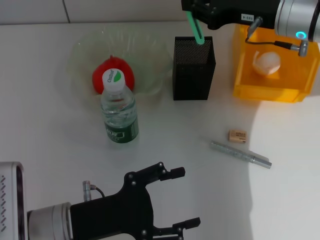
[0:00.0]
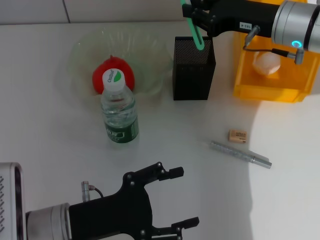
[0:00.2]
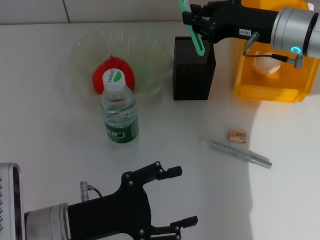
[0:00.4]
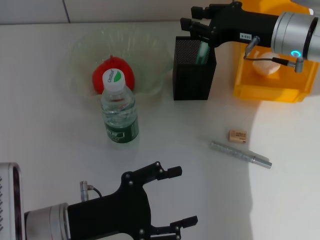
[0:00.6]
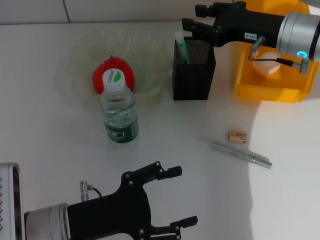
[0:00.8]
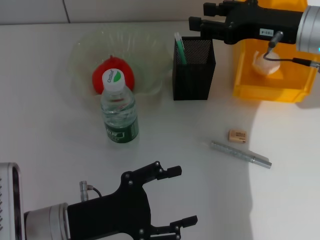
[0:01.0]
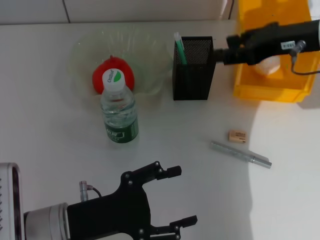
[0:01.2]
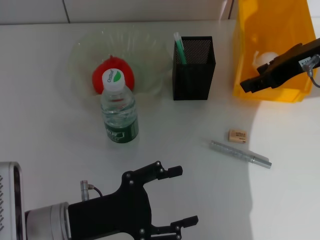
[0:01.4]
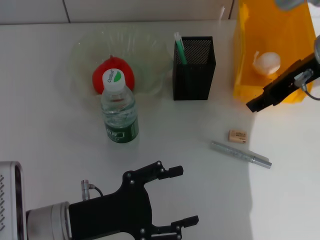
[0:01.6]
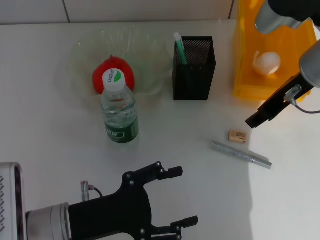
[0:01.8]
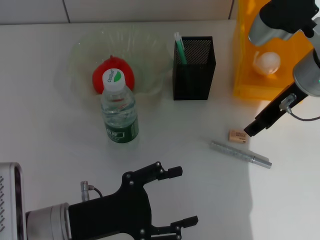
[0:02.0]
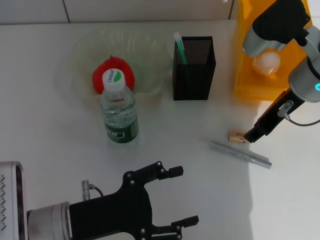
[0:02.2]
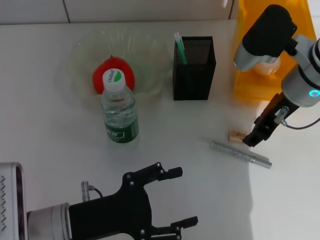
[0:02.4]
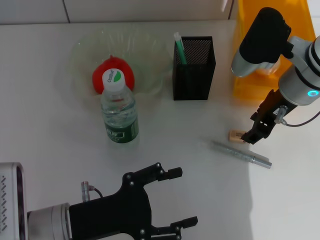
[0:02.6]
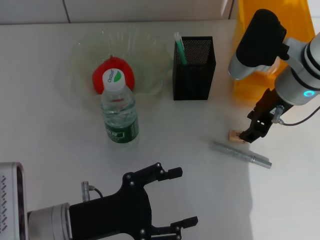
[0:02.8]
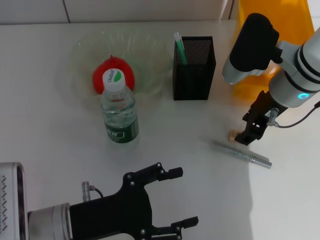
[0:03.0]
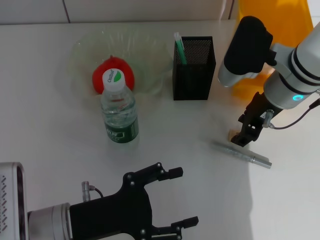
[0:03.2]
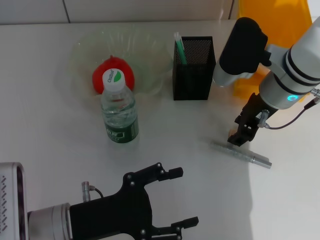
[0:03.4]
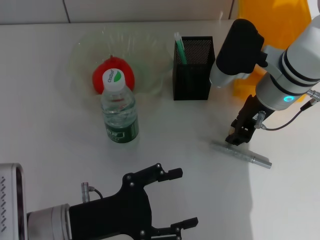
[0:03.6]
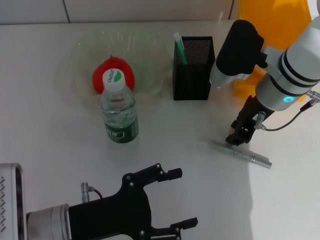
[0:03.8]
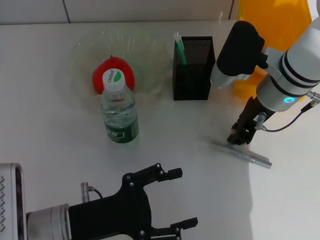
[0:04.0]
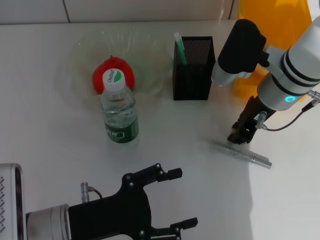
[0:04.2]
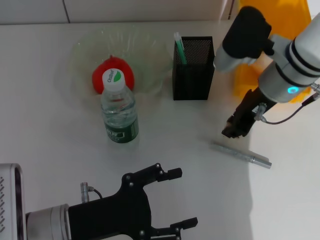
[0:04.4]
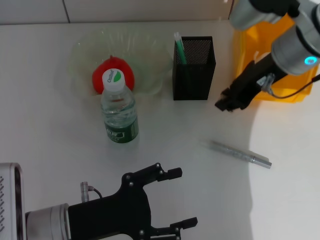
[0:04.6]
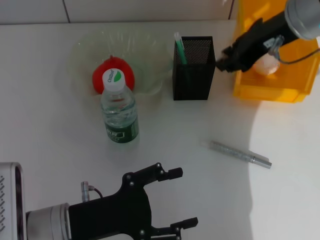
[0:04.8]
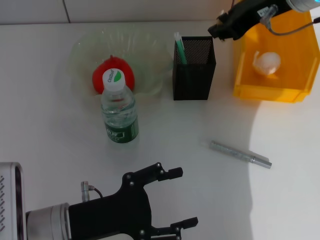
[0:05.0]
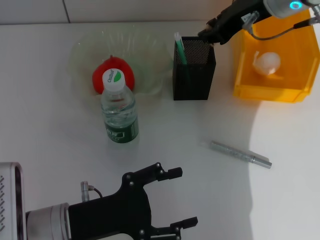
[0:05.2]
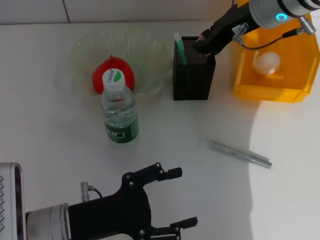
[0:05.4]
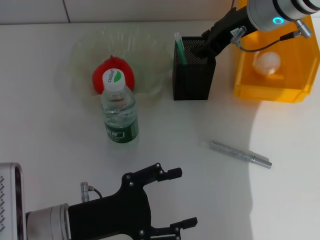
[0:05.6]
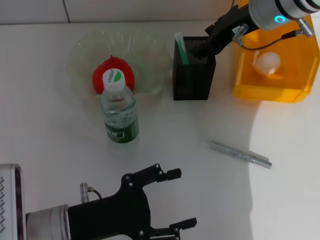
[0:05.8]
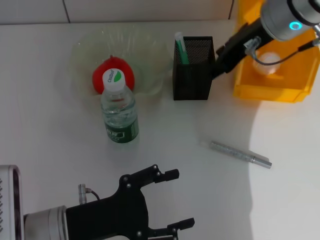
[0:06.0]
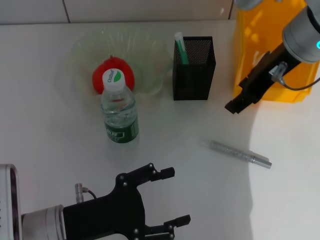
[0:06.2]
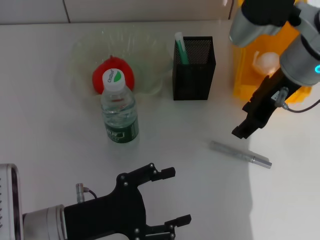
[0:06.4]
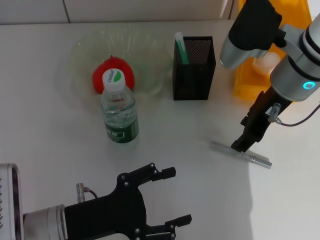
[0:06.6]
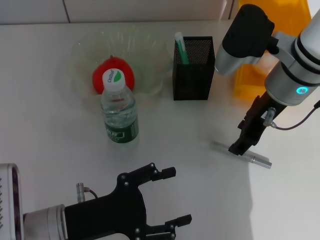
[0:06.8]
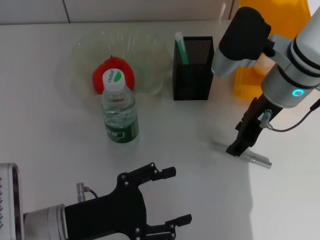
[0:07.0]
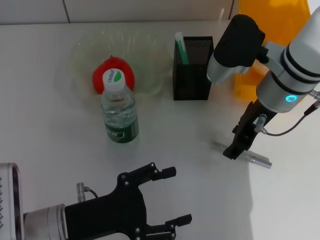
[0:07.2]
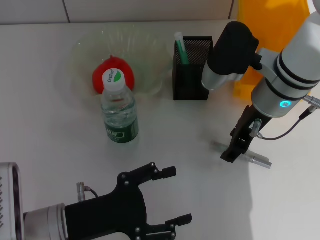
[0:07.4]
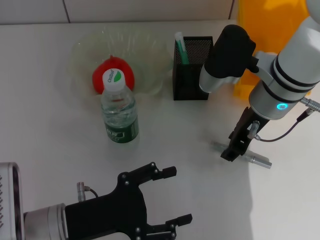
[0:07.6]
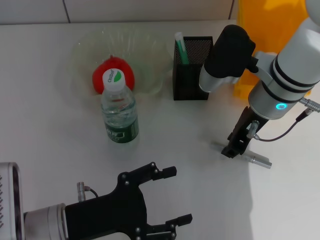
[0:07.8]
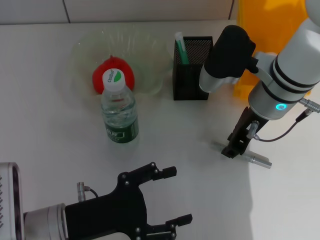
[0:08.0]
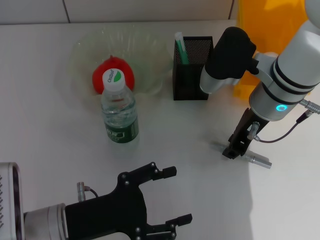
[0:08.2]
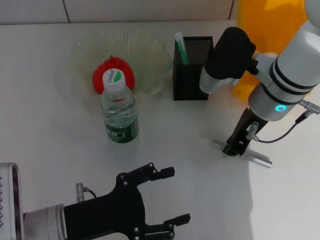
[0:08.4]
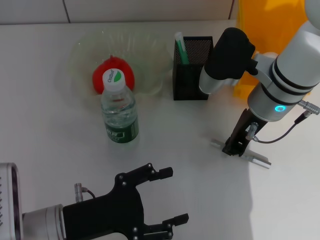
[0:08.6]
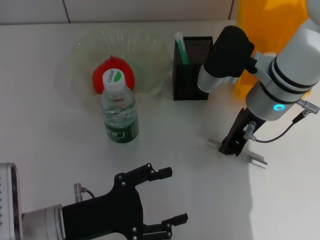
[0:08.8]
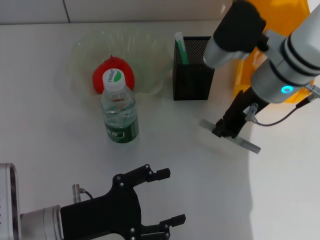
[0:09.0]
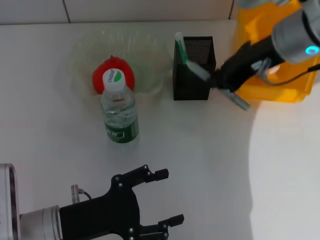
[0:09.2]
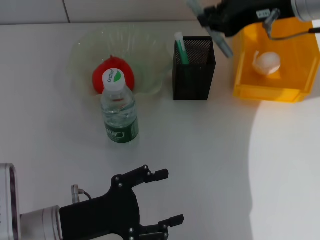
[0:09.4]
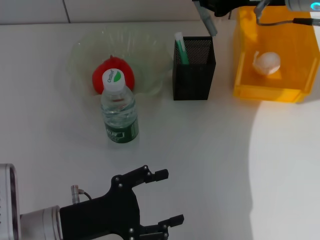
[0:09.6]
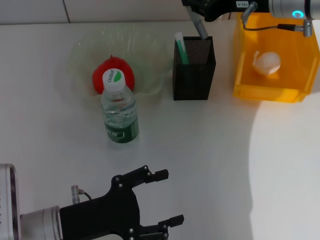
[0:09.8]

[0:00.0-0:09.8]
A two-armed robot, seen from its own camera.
Step, 0:01.2 to 0:04.0: Grab the eraser with the right hand.
Step, 0:04.2 to 0:05.8: Put the eraser into the pen holder with the right hand.
Step, 0:06.0 to 0:08.4: Grab the gray glue with the right hand.
0:00.0 to 0:01.4: The right gripper travels backward by approximately 5 cm, and opens up.
0:01.4 to 0:02.8: The right gripper moves downward, approximately 10 cm.
0:02.8 to 0:04.2: The right gripper closes.
0:04.2 to 0:05.6: The right gripper moves upward, some 10 cm.
0:05.6 to 0:07.0: The right gripper travels backward by roughly 5 cm, and opens its fingers.
0:07.0 to 0:08.4: The right gripper closes its fingers.
0:08.4 to 0:09.8: The right gripper goes roughly 10 cm upward.

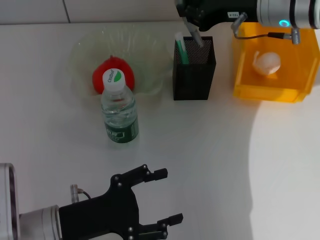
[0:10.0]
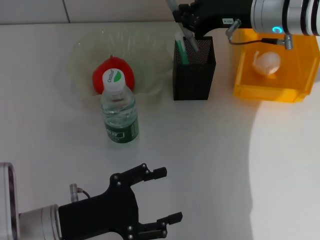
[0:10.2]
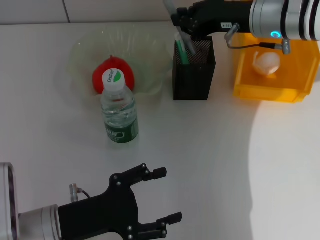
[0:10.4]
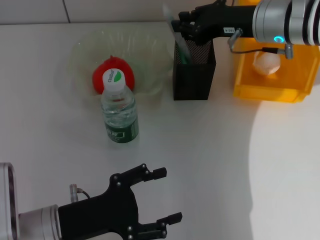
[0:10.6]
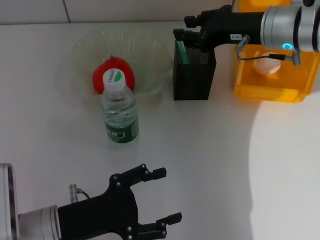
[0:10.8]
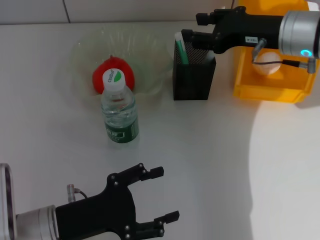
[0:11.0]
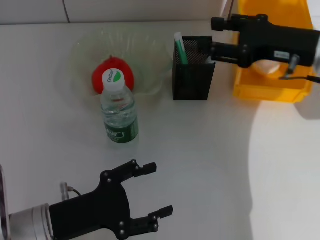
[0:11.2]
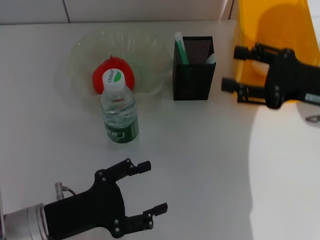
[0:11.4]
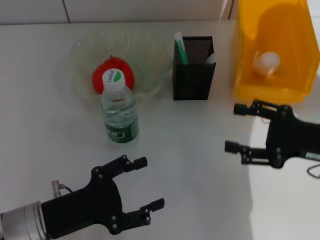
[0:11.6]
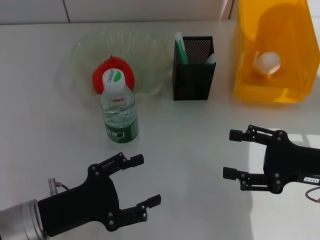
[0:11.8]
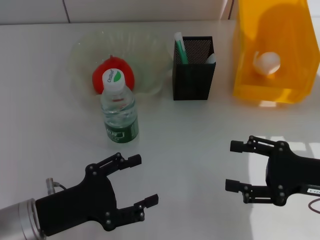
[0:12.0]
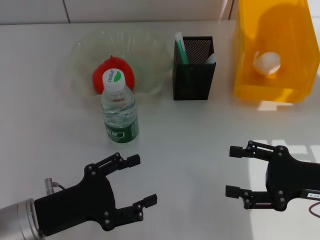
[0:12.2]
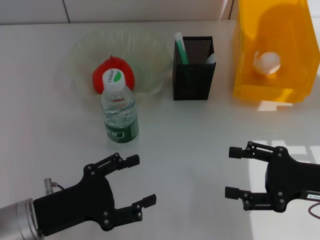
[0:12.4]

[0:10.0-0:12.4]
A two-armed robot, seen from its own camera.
0:10.0 to 0:11.2: The right gripper heads backward and to the right, covering approximately 10 cm, and opens.
0:11.2 to 0:12.4: The right gripper is displaced backward and downward by approximately 15 cm, and opens.

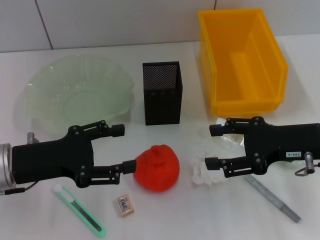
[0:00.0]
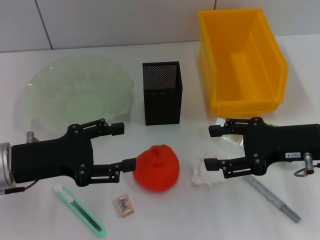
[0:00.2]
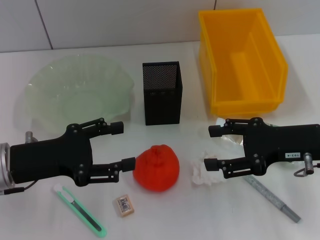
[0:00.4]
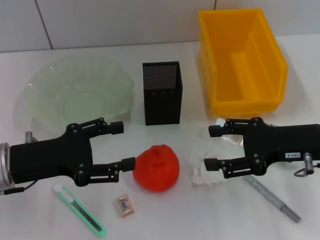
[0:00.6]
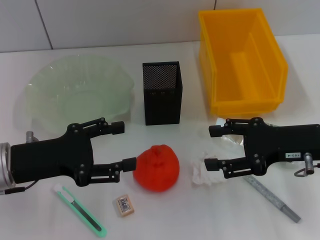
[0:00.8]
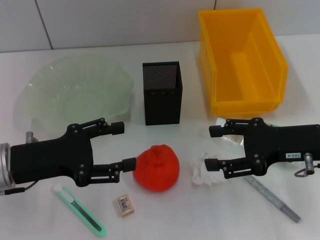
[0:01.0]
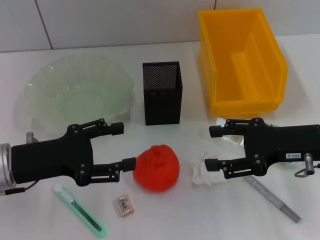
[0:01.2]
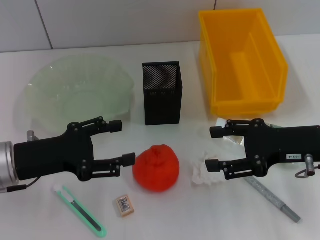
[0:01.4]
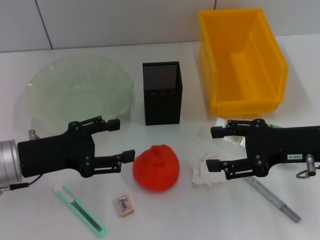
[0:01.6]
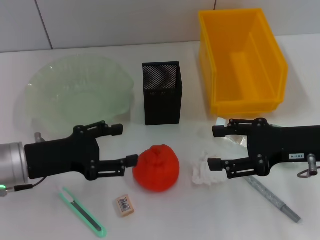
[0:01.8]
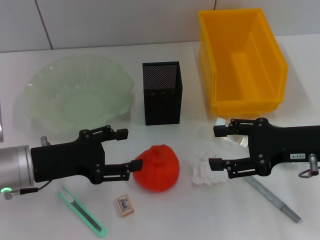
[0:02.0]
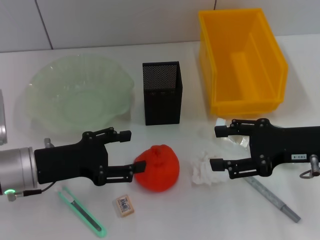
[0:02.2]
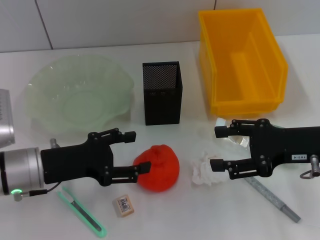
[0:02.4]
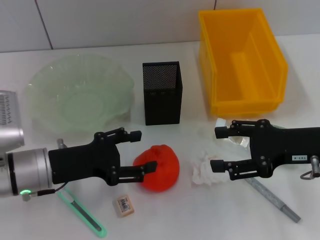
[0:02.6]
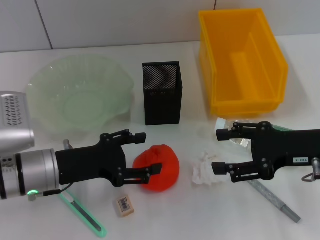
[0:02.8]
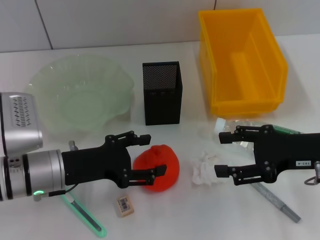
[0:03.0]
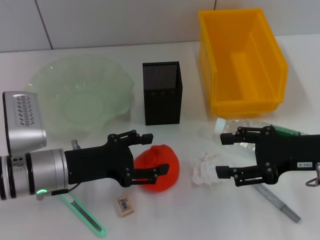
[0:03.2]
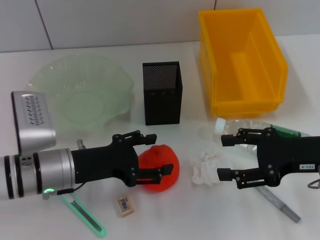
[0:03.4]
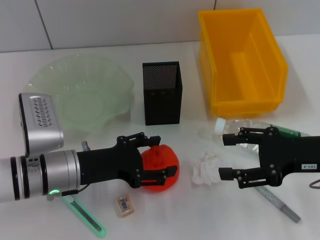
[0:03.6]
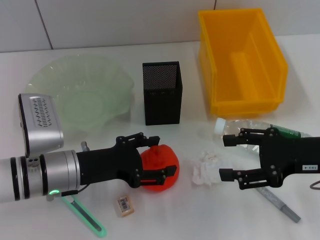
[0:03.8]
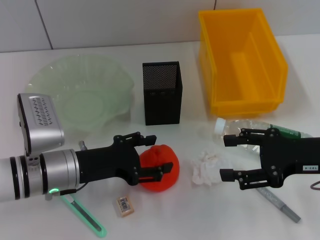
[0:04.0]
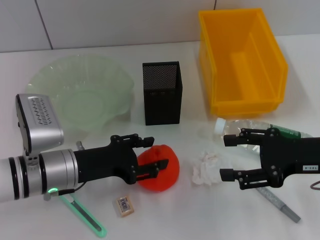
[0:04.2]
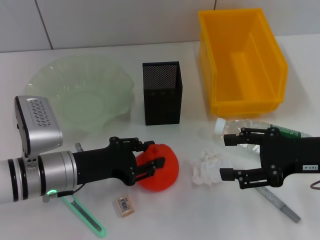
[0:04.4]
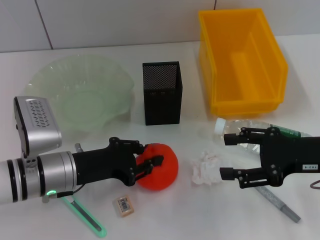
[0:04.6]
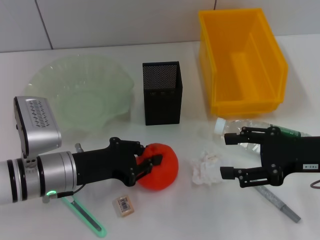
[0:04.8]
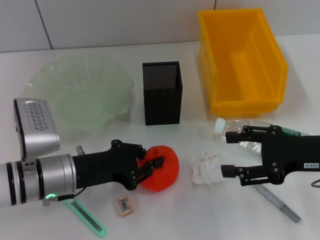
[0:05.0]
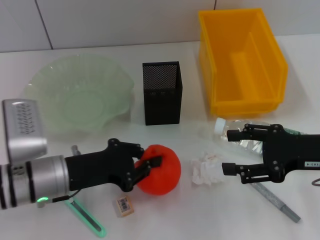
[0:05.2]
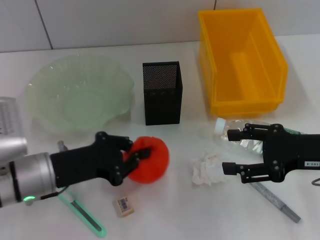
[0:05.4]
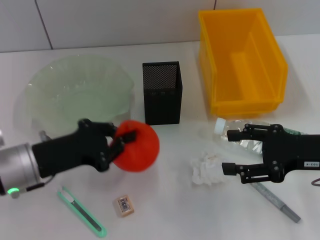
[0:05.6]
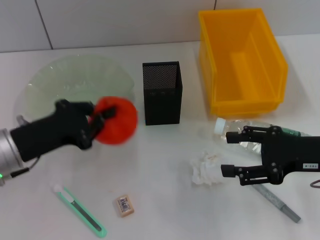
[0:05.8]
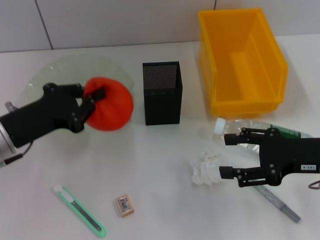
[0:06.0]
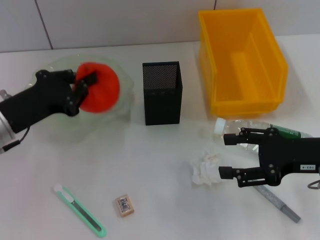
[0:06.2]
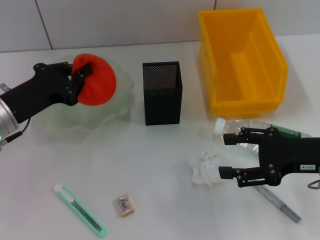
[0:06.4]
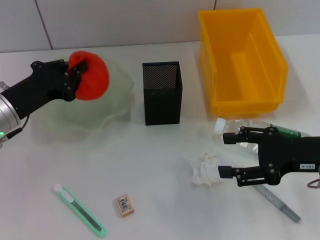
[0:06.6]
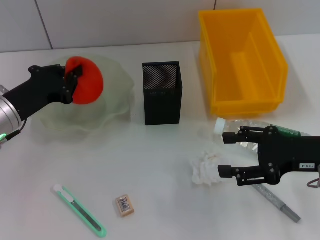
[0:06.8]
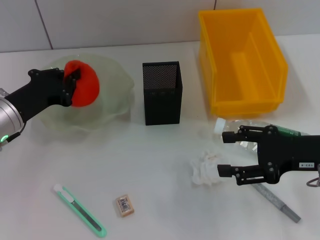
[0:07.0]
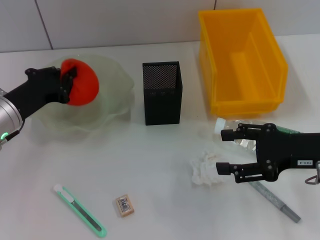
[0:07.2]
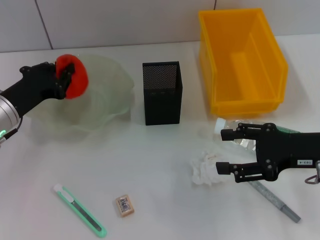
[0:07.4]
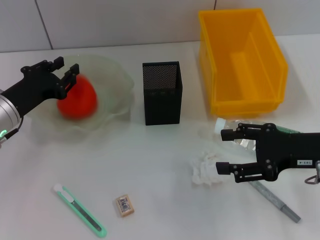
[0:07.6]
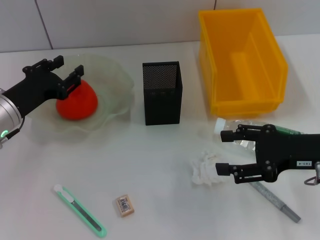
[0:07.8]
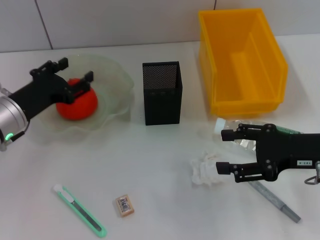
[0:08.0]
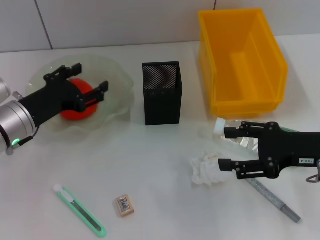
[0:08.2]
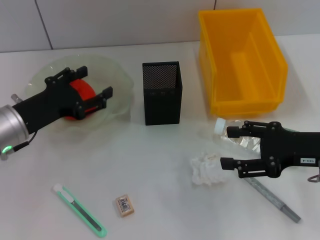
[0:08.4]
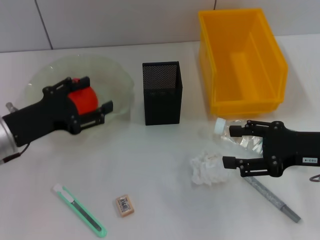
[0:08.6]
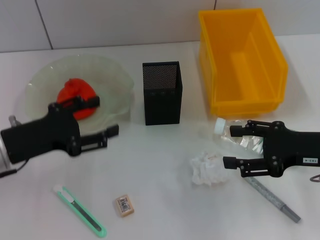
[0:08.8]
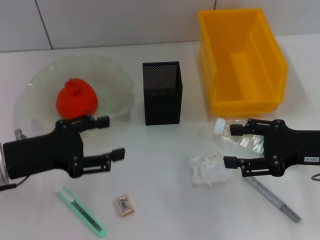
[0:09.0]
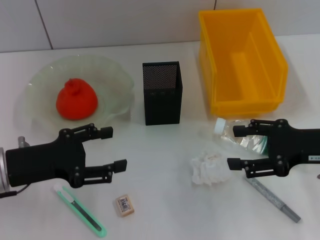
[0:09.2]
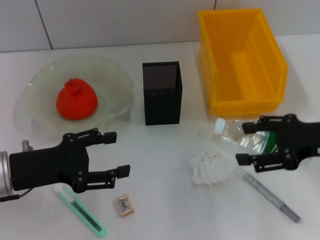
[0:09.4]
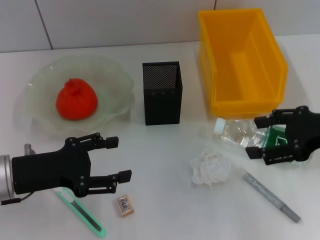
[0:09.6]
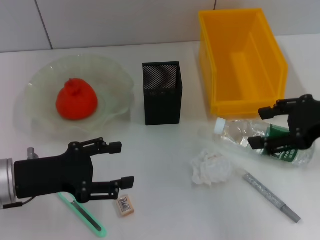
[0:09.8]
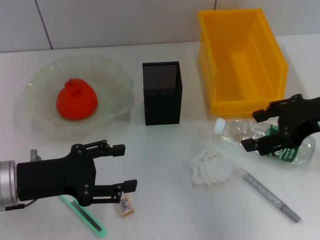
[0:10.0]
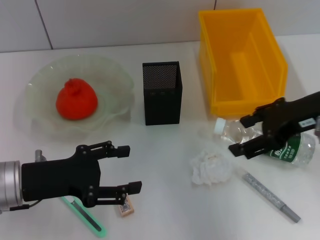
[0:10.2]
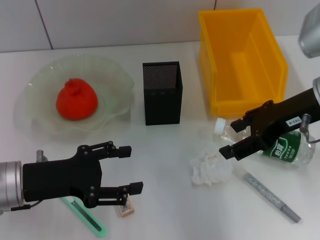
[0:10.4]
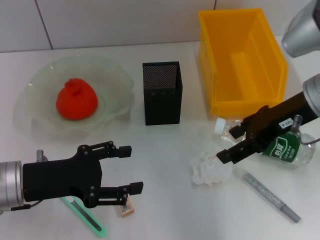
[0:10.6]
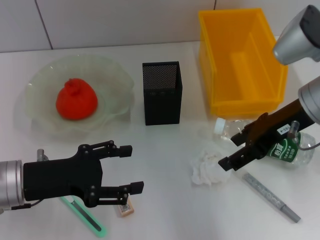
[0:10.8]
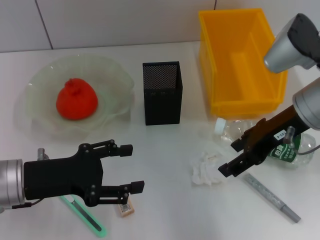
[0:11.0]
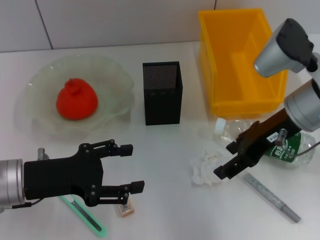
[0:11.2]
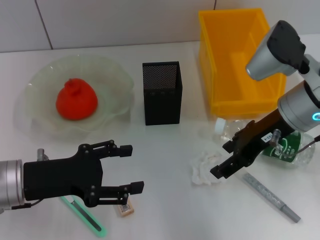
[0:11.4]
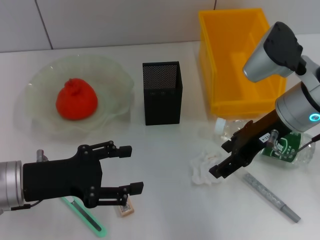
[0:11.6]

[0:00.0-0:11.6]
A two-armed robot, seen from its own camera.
Step, 0:00.0 to 0:04.6: Grab the orange with the left hand.
Step, 0:05.0 to 0:07.8: Place the orange into the fruit bowl with the left hand.
0:00.0 to 0:01.4: The two grippers keep their place.
0:01.4 to 0:02.8: The grippers stay close to where they were, moving slightly.
0:02.8 to 0:04.4: The grippers make only small movements.
0:04.4 to 0:05.8: The left gripper shifts about 5 cm to the left, and closes up.
0:05.8 to 0:07.2: The left gripper goes some 5 cm forward.
0:07.2 to 0:08.8: The left gripper heads backward, covering roughly 5 cm, and opens.
0:08.8 to 0:10.2: The right gripper shifts roughly 10 cm upward.
0:10.2 to 0:11.6: The right gripper changes place by some 5 cm.
